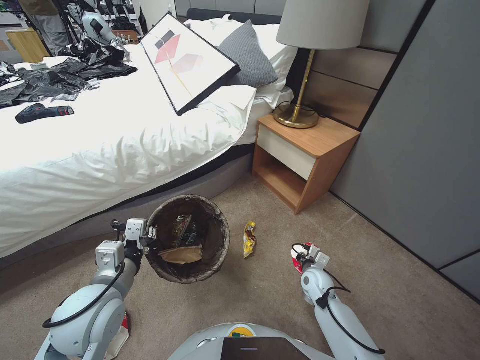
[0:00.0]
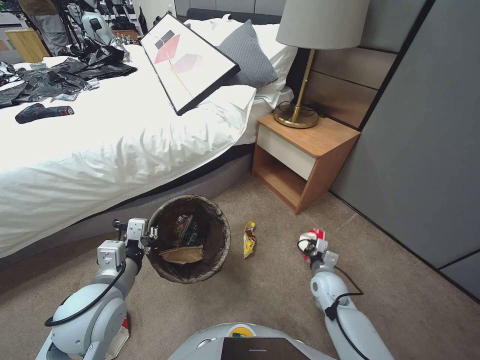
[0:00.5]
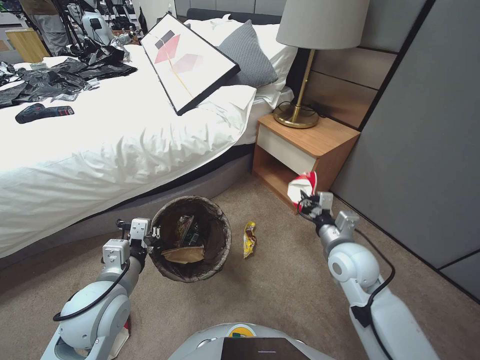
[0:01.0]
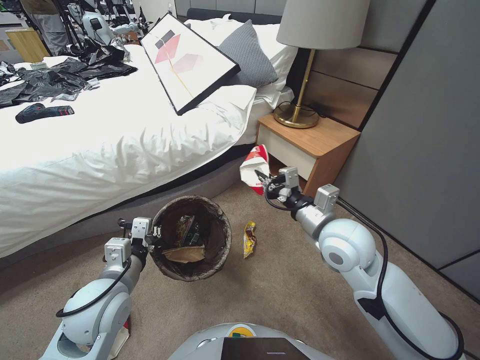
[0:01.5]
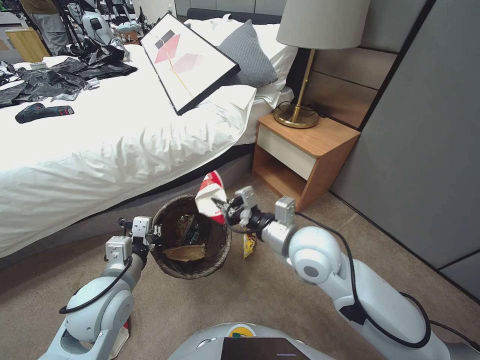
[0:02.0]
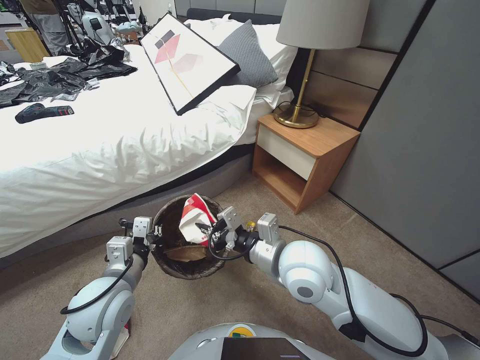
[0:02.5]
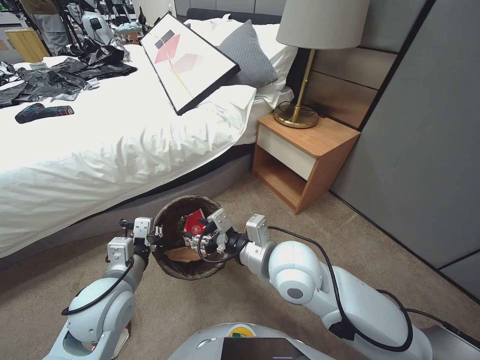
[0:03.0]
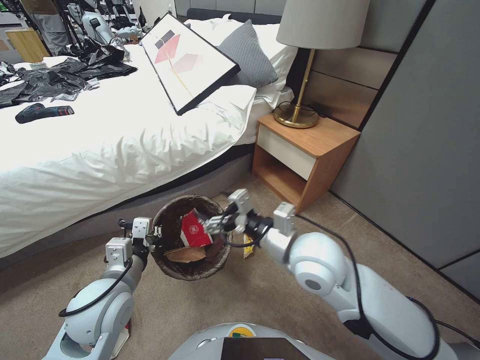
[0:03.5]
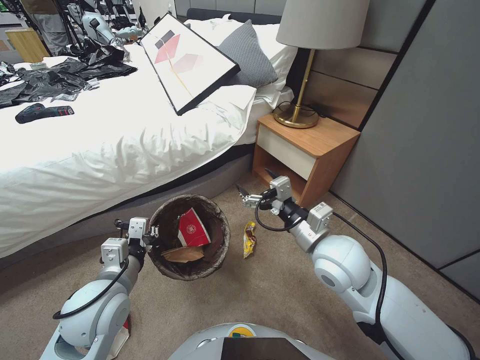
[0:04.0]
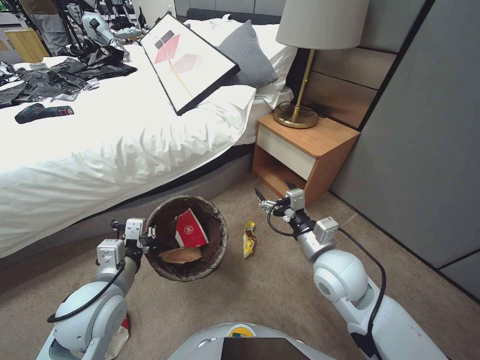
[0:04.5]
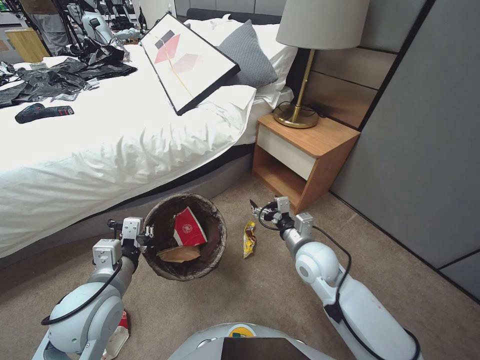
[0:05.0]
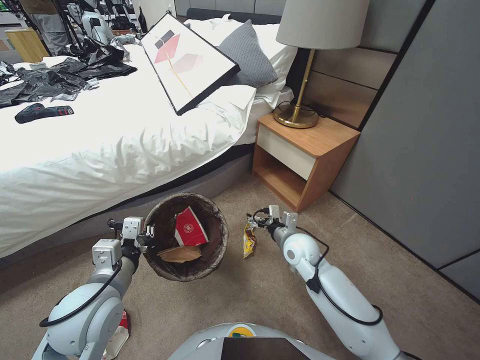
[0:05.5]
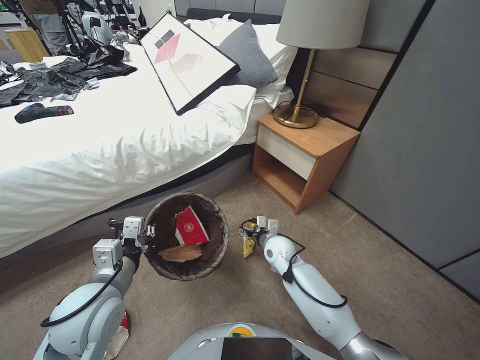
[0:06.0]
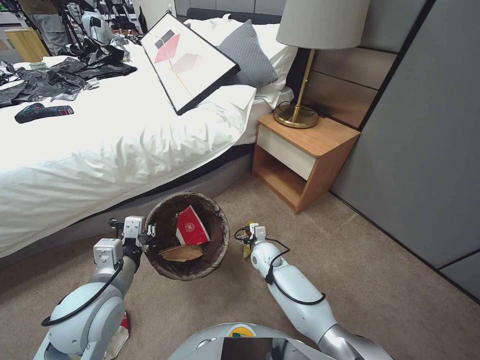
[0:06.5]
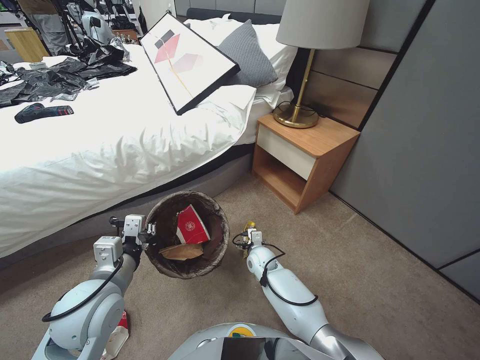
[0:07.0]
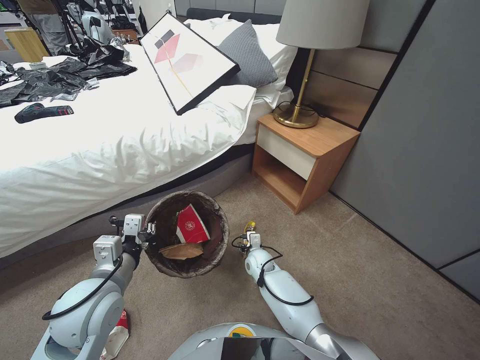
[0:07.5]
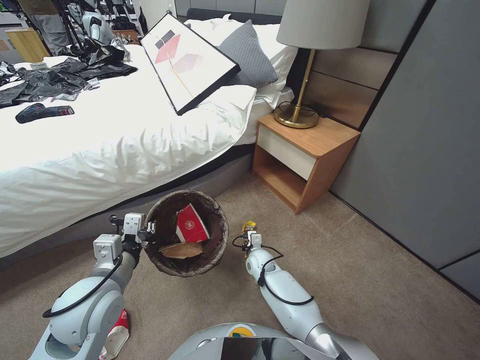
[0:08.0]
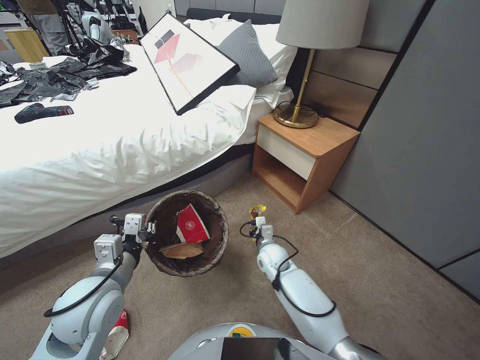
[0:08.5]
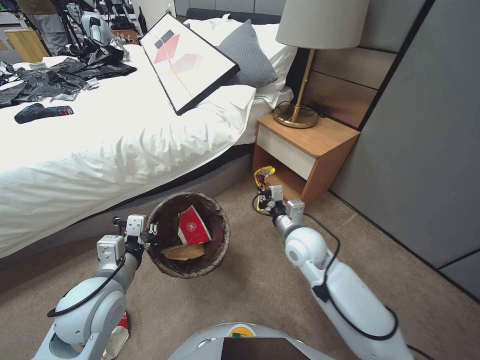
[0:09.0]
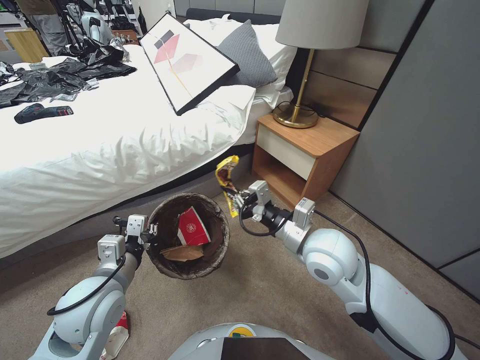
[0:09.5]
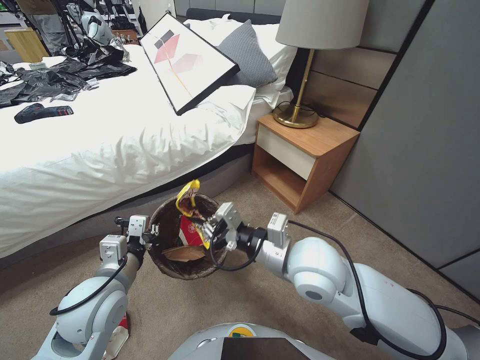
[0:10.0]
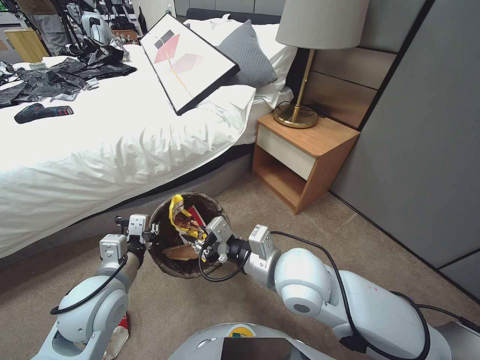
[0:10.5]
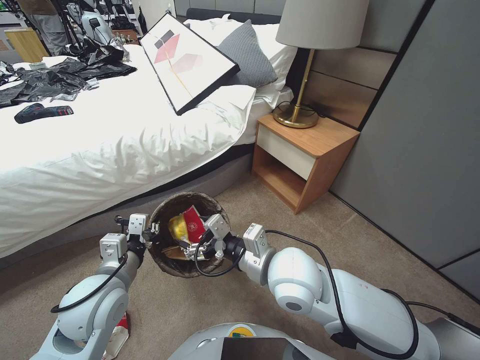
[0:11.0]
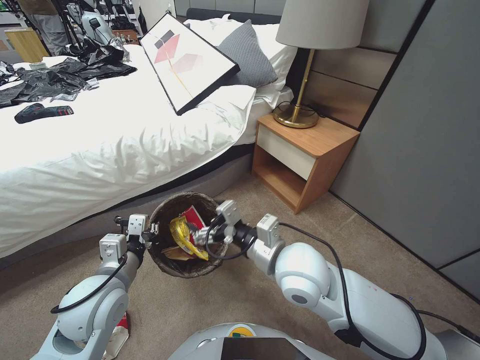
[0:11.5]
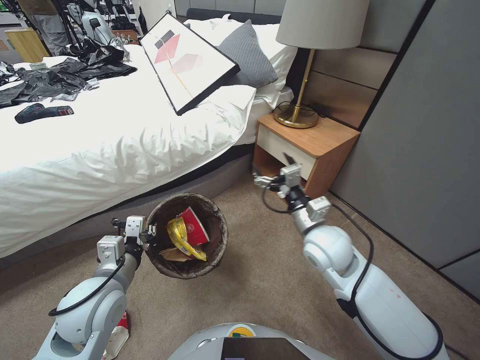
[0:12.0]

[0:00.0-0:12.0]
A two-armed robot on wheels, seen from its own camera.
Task of the whole recording: Pick up the trash bin, then pick up the garbage from the floor and place it into the trash bin.
0.0 to 2.0 s: The right gripper is displaced upward by roughly 35 cm.
2.0 to 4.0 s: The right gripper opens up.
4.0 to 6.0 s: The right gripper goes some 25 cm downward and forward.
6.0 to 8.0 s: The right gripper moves downward and to the left, approximately 10 cm, and closes up.
8.0 to 10.0 s: The right gripper is displaced upward by approximately 35 cm.
10.0 to 12.0 s: The right gripper changes place by about 5 cm, and opens its fingers.

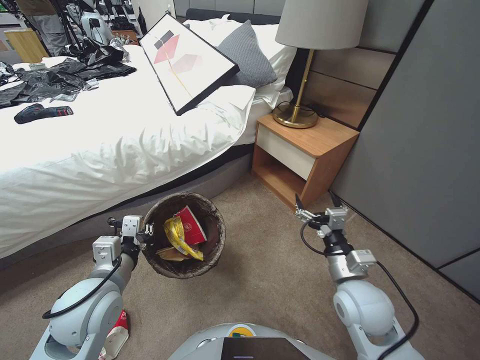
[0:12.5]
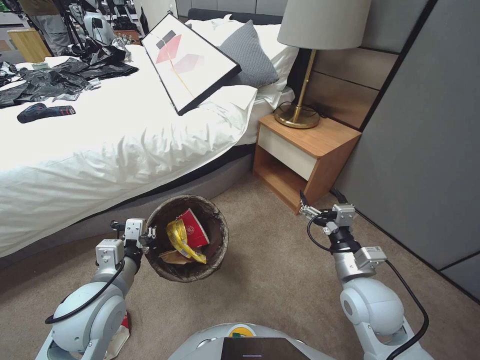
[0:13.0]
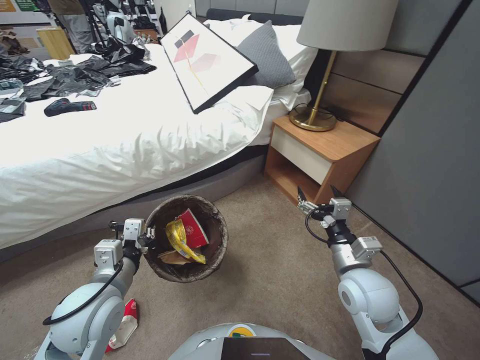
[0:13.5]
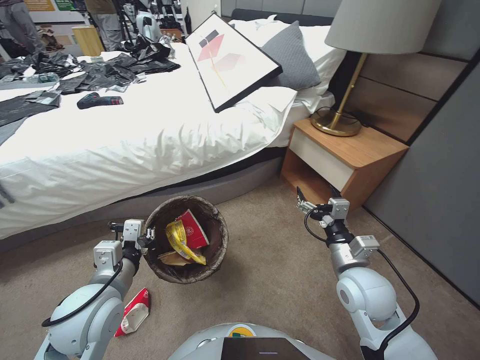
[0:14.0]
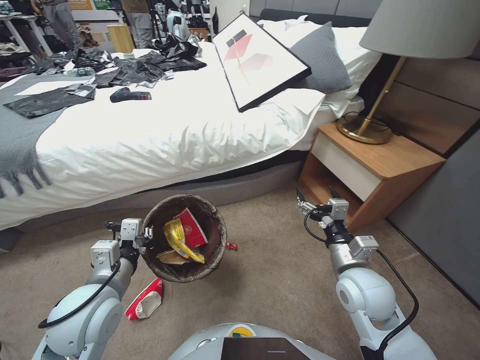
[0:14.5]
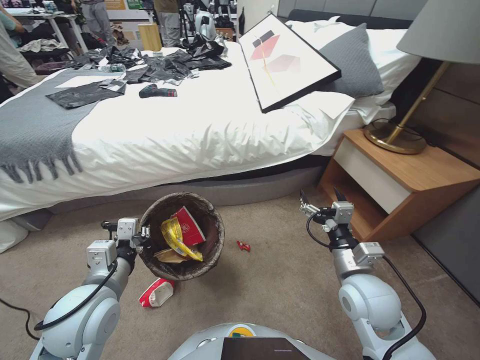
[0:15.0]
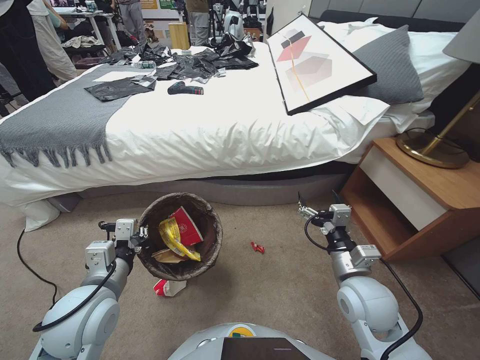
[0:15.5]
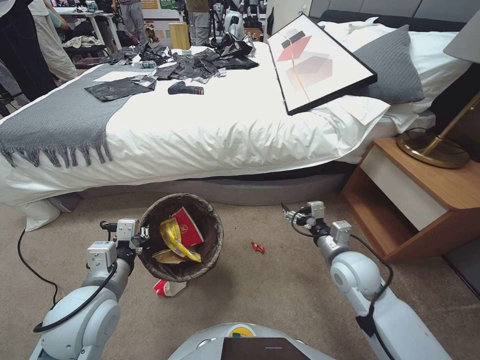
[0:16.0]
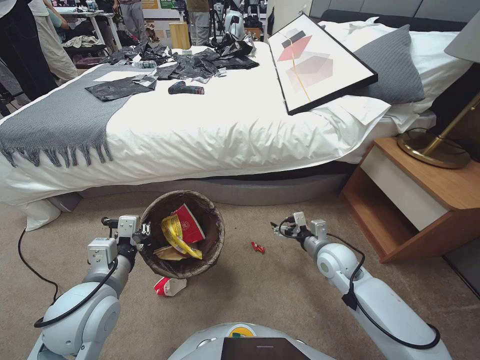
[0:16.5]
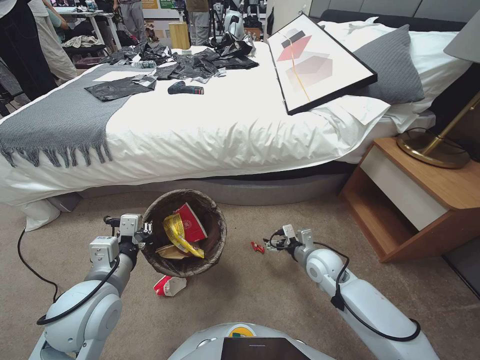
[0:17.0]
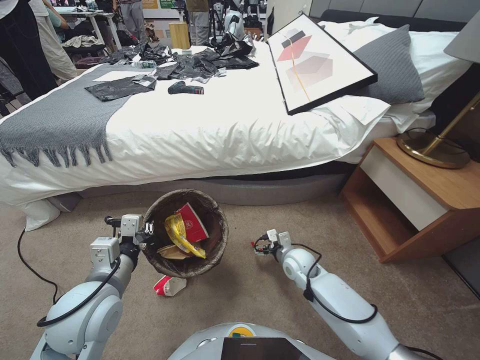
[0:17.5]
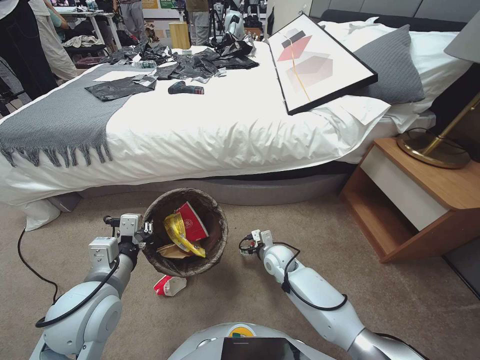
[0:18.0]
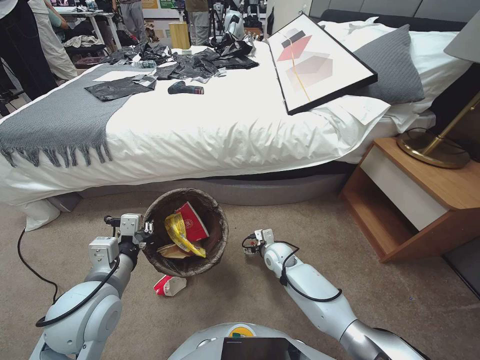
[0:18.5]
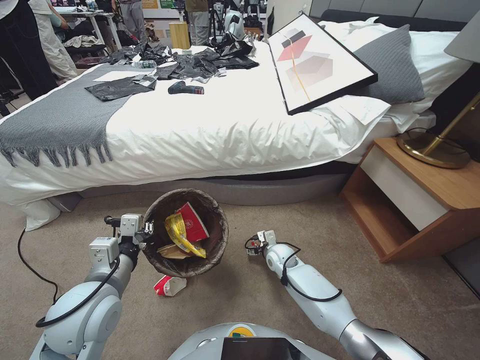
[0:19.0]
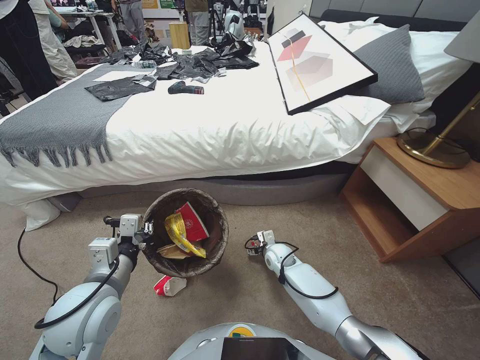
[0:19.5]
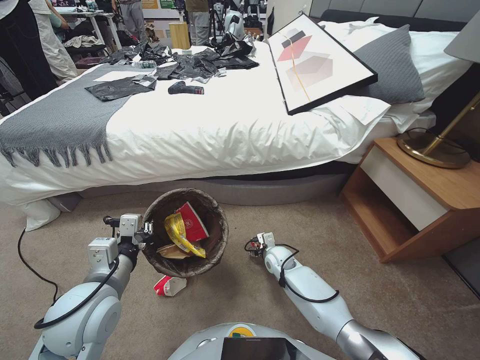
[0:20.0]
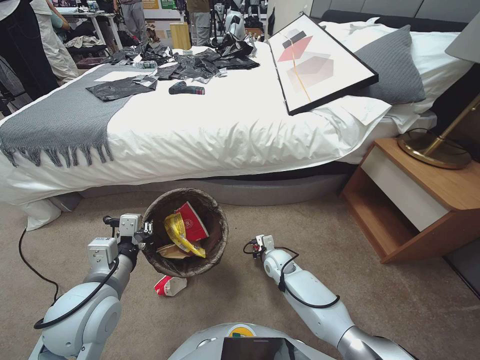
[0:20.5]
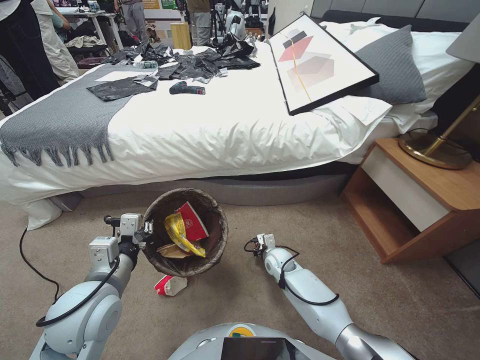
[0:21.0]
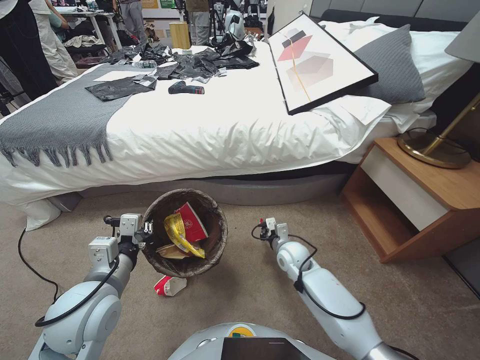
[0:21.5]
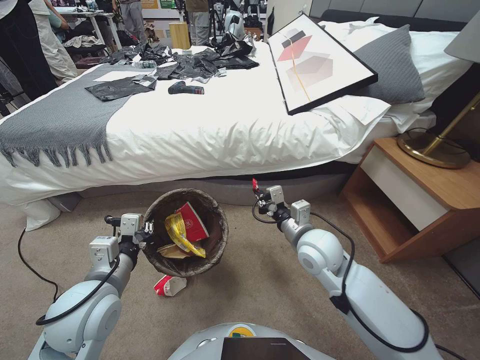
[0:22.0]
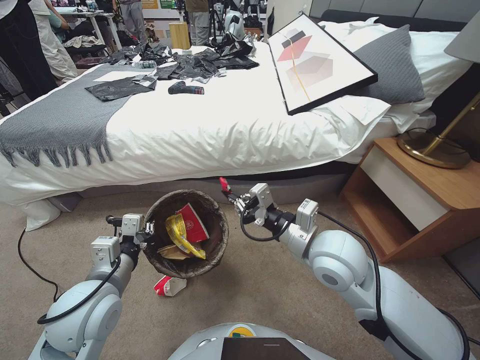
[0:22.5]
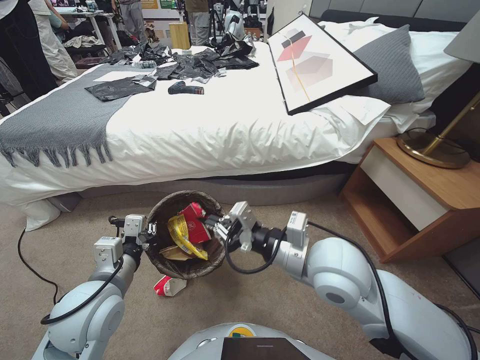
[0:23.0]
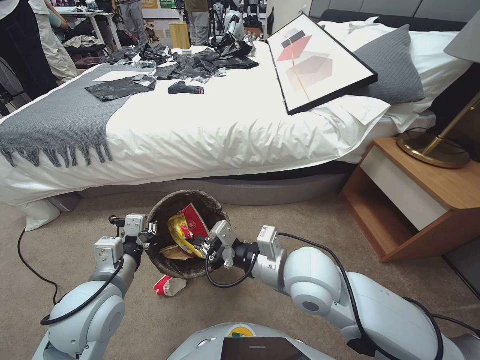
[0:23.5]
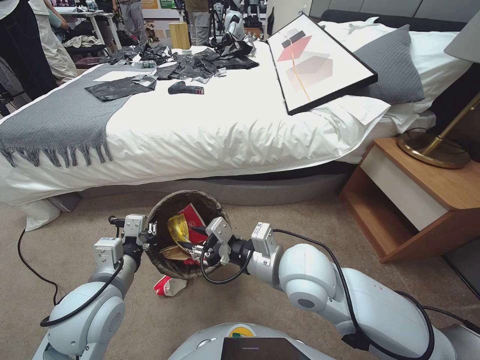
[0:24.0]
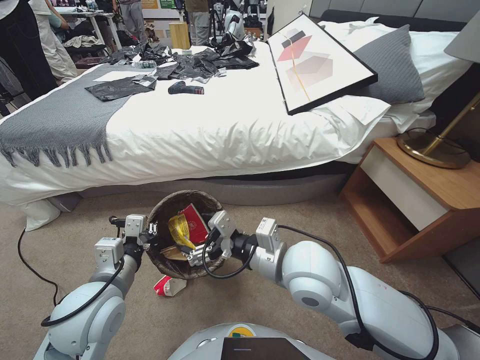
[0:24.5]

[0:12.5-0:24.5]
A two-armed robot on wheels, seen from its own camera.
Task of the whole recording: Pick up the trash bin, then pick up the garbage from the floor and place it into the trash bin.
14.5 to 16.5 s: The right gripper is displaced forward and downward by some 10 cm.
16.5 to 18.5 s: The right gripper moves downward, to the left and forward, roughly 20 cm.
18.5 to 20.5 s: The right gripper closes its fingers.
20.5 to 22.5 s: The right gripper is displaced upward by roughly 35 cm.
22.5 to 24.5 s: The right gripper heads to the left, covering about 5 cm, and opens its fingers.

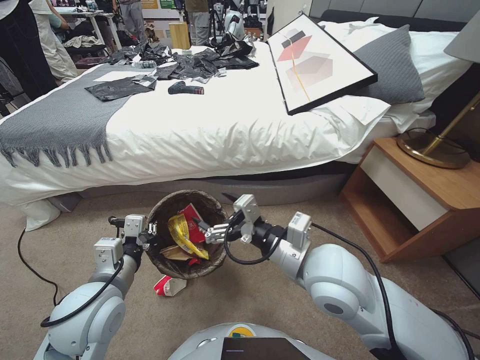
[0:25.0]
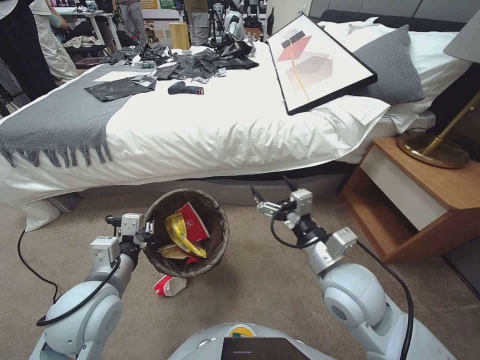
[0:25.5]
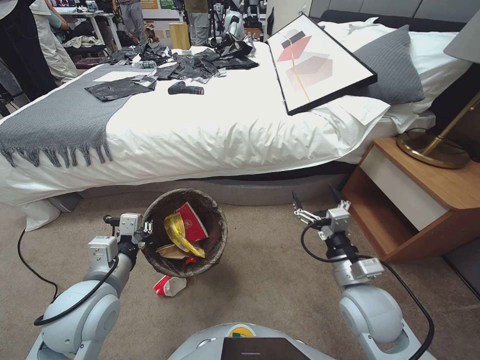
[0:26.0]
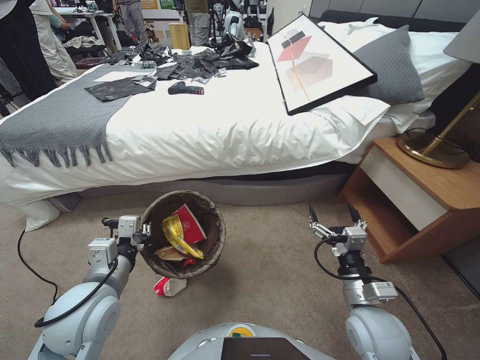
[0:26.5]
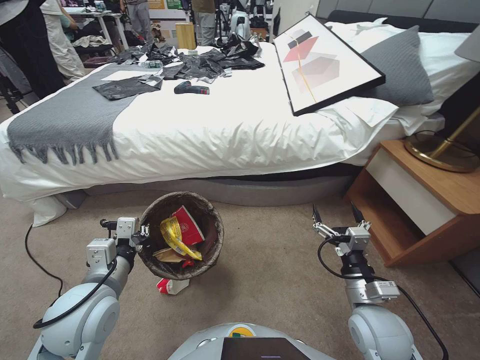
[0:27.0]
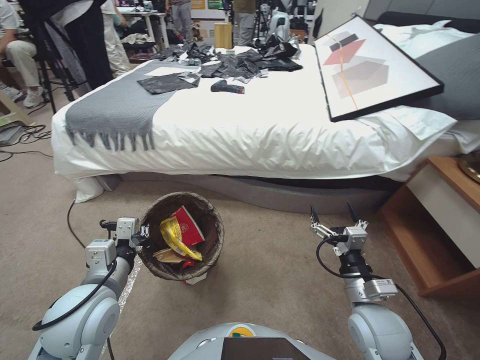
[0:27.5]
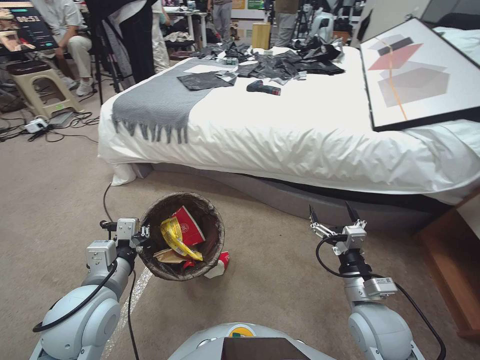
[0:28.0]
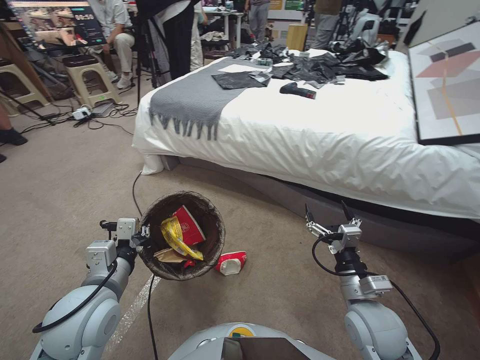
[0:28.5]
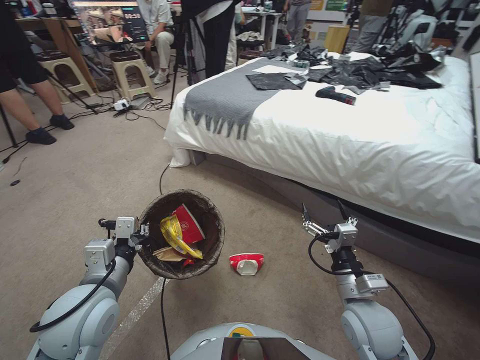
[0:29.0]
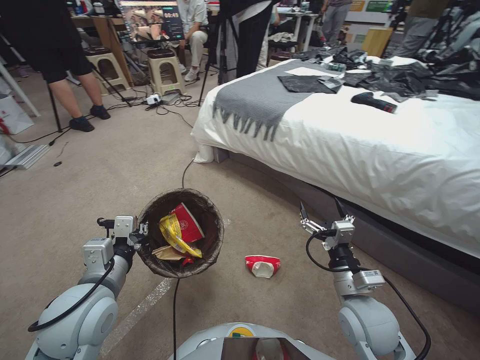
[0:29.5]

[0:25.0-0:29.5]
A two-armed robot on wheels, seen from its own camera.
Task of the whole recording: Pick up the trash bin, then pick up the garbage from the floor and place it into the trash bin.
25.0 to 27.0 s: The right gripper travels downward and to the right by some 20 cm.
